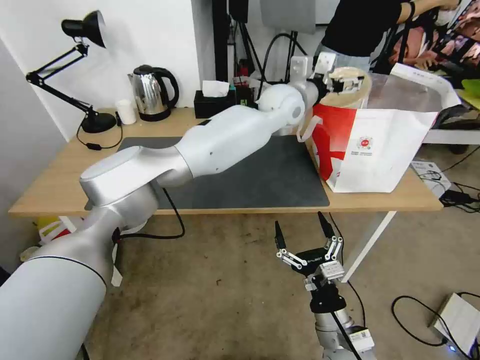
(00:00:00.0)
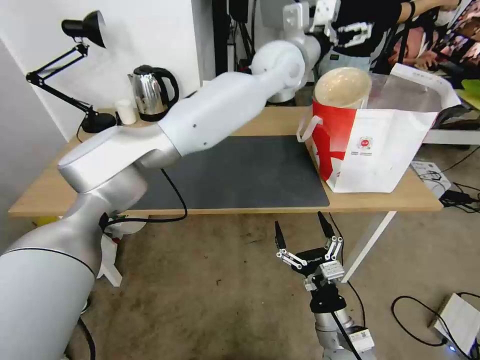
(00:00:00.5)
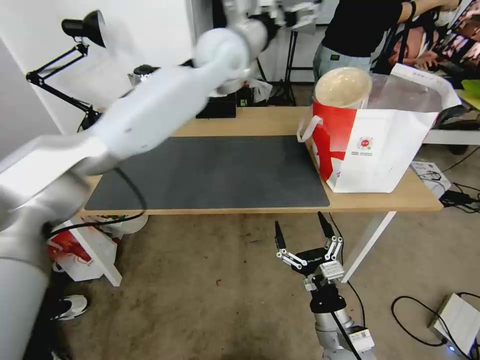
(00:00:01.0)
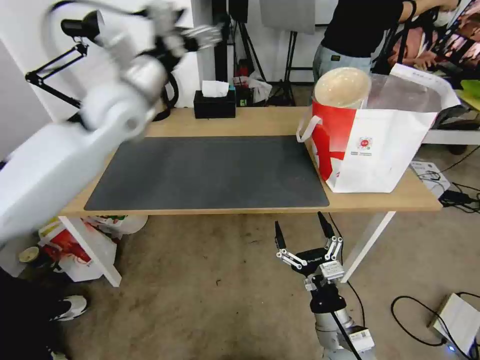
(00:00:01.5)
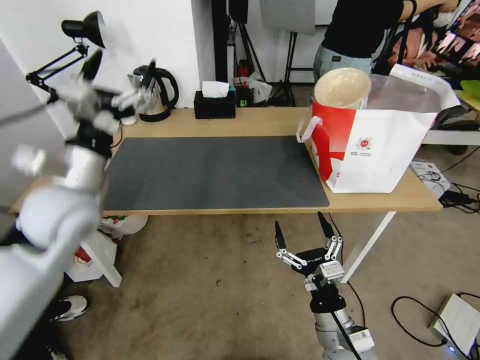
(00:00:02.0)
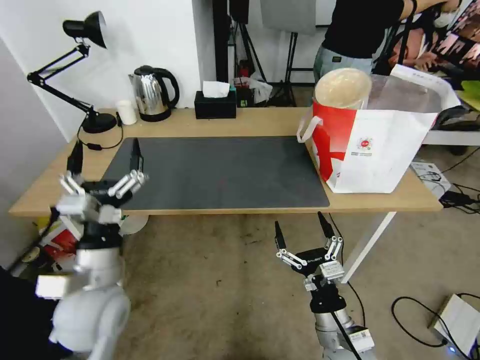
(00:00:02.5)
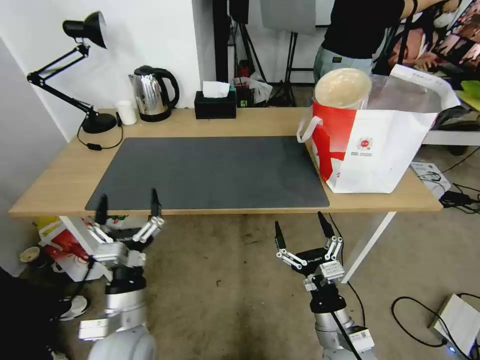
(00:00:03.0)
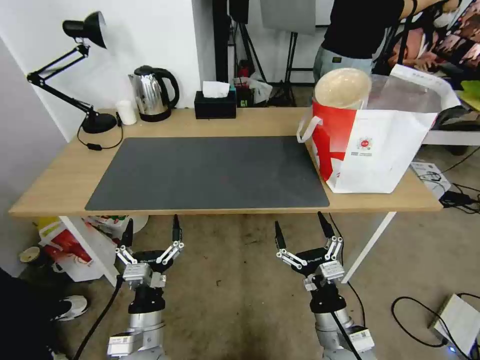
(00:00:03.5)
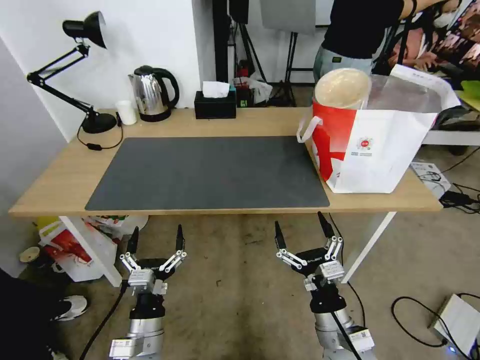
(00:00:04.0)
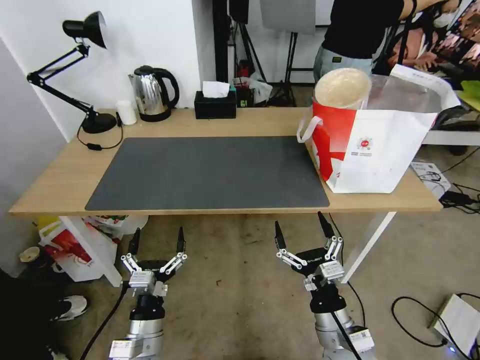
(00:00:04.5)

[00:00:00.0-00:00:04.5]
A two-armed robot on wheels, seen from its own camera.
Task of the whole recording: Pick up the trash from the table and place it into the takeout bag.
00:00:00.0 to 00:00:02.0: The left gripper moves to the left and backward, approximately 40 cm.
00:00:02.0 to 00:00:04.5: The left gripper is displaced downward and backward by approximately 35 cm.
